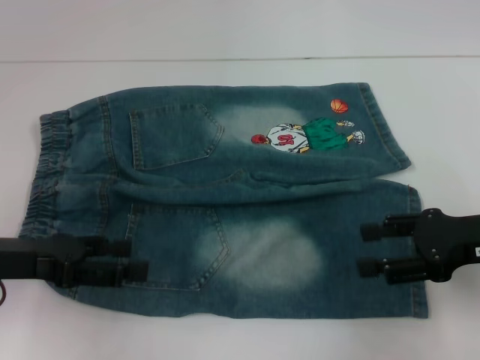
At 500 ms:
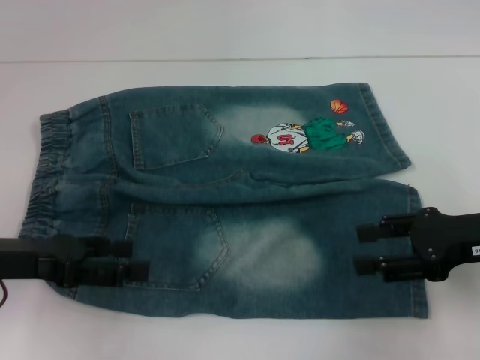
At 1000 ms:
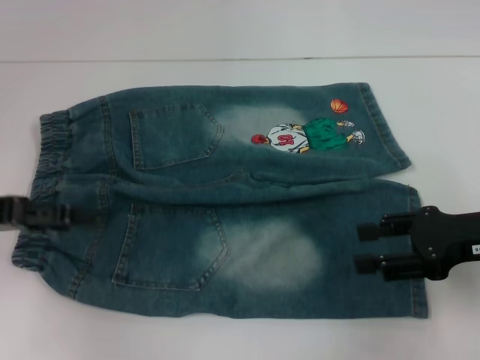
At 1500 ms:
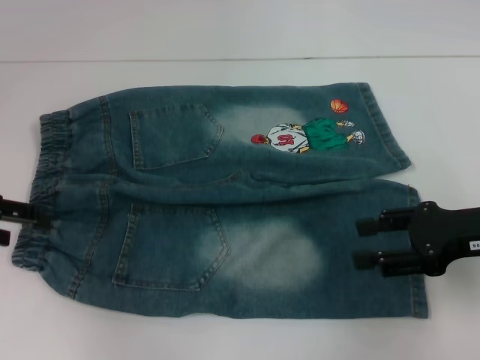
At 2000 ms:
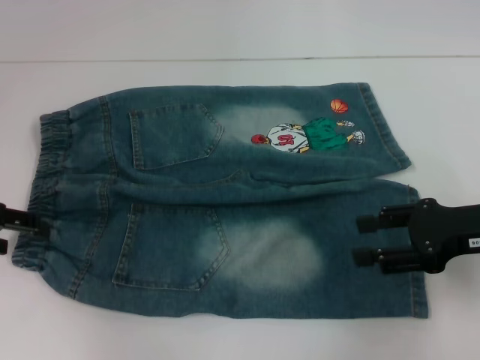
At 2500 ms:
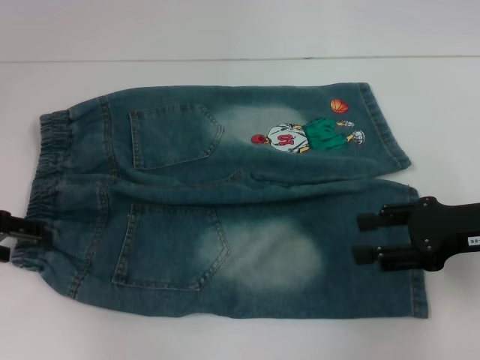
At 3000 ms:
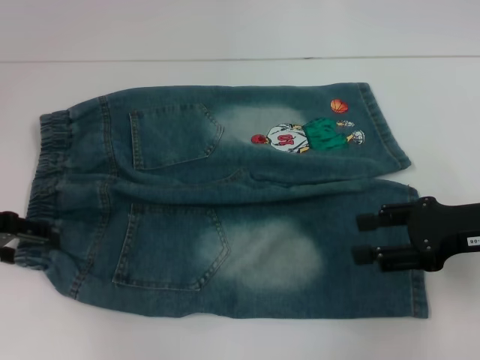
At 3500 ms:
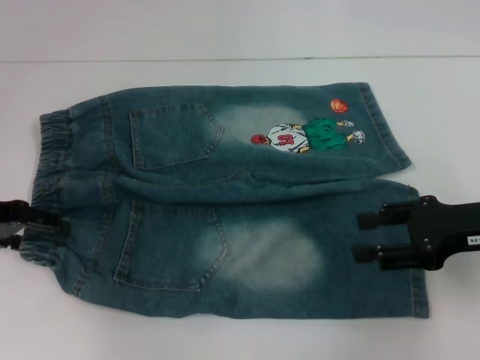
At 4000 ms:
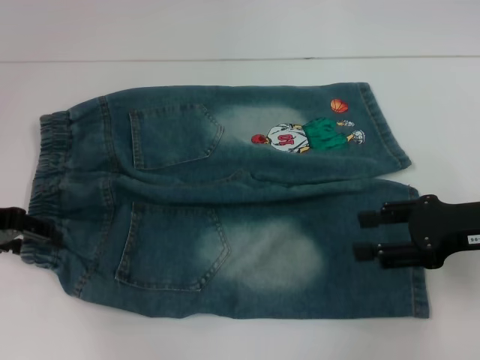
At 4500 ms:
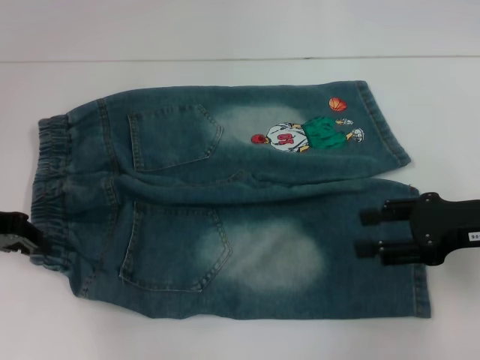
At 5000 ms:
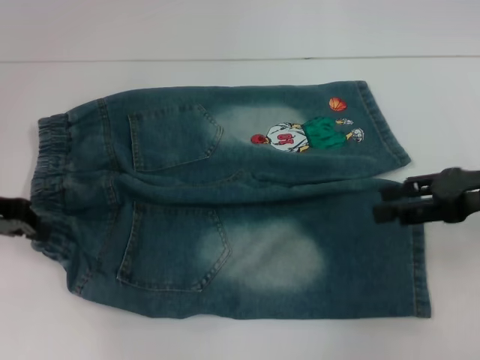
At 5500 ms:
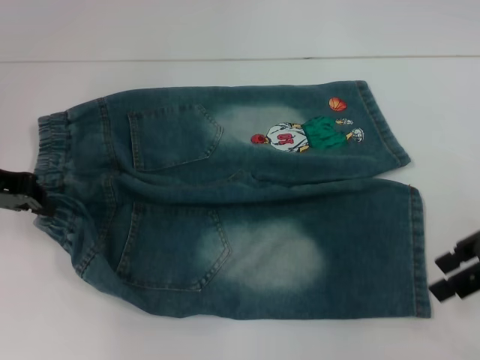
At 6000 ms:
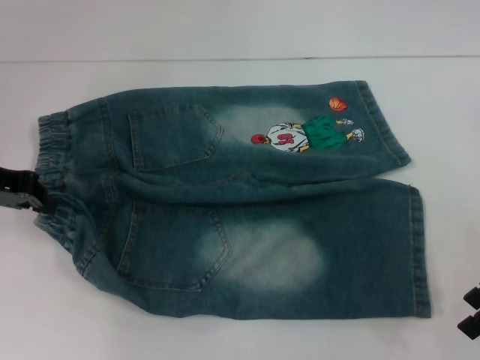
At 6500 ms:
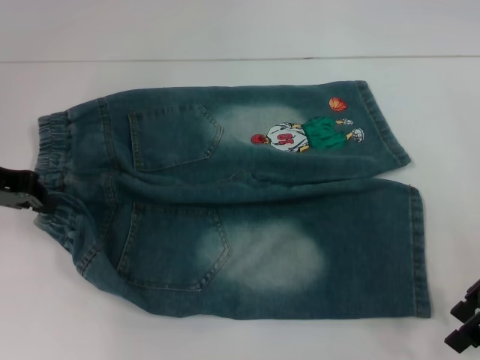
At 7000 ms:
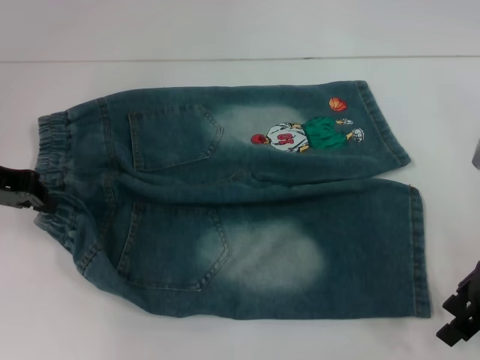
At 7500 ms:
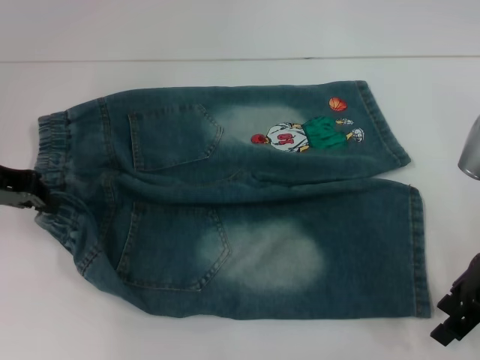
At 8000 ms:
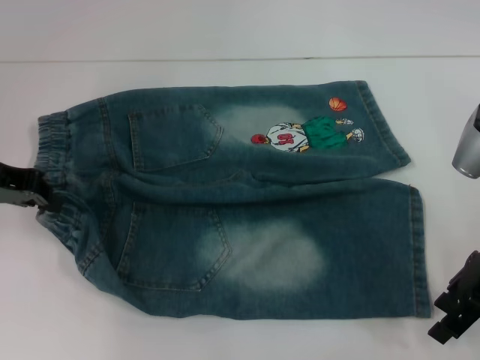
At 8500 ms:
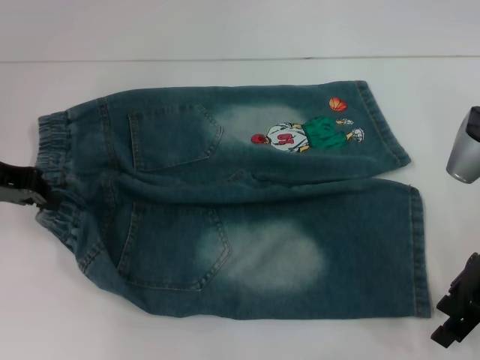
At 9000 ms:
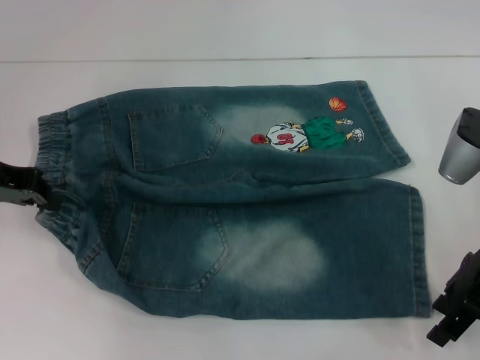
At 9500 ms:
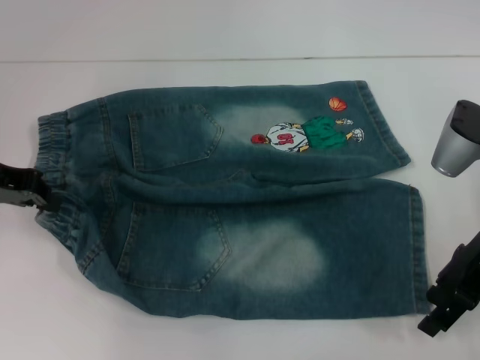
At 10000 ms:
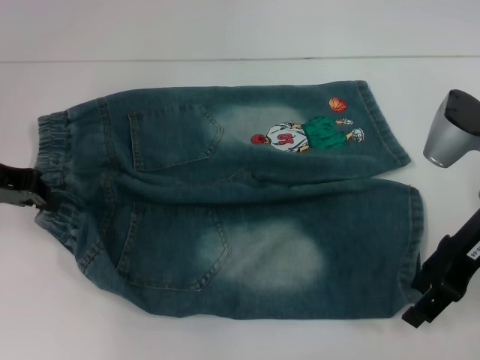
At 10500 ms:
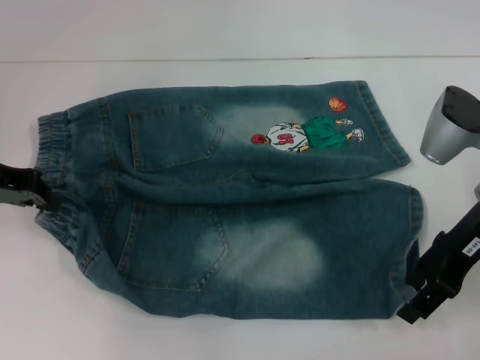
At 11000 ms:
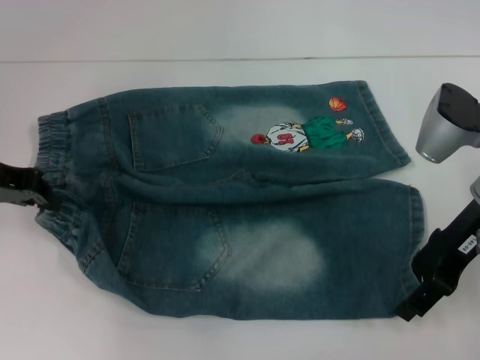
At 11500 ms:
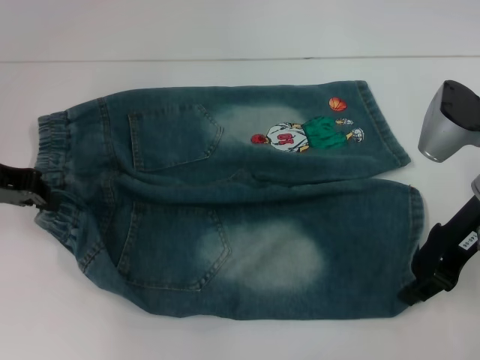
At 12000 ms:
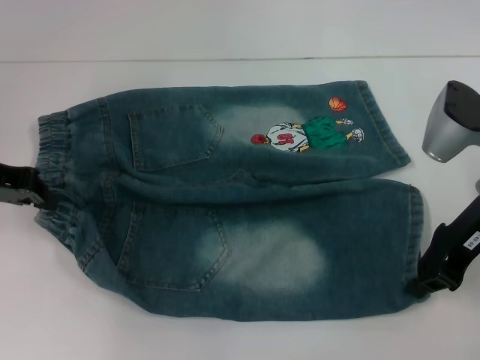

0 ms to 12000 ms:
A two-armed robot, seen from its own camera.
Step, 0 ms to 4500 ms: Hold the lower left waistband with your left hand.
0 ms to 2000 ms: The left gripper travels forward and to the left by about 10 cm.
2000 ms to 4000 ms: The grippers stay close to where they were, moving slightly.
4000 ms to 6000 ms: The left gripper closes.
6000 ms to 8000 ms: There are only small adjustments of the grippers.
8000 ms to 10000 ms: There are only small adjustments of the grippers.
10000 ms to 12000 ms: The right gripper closes.

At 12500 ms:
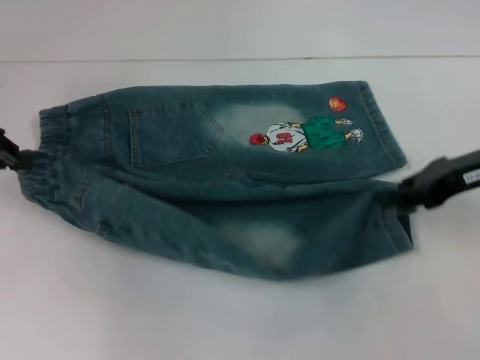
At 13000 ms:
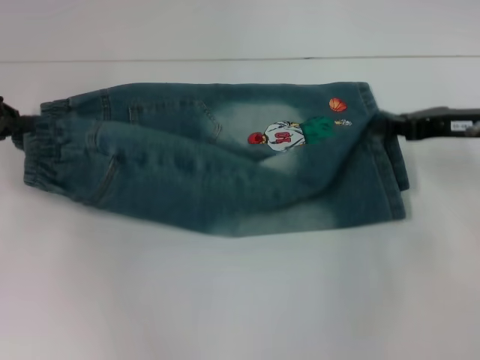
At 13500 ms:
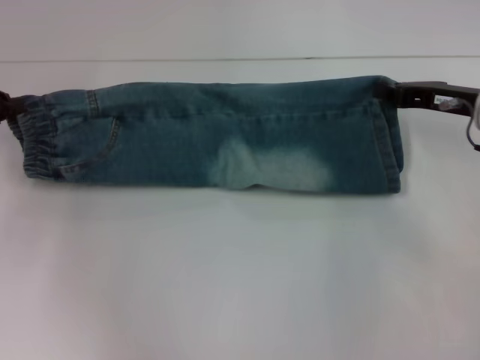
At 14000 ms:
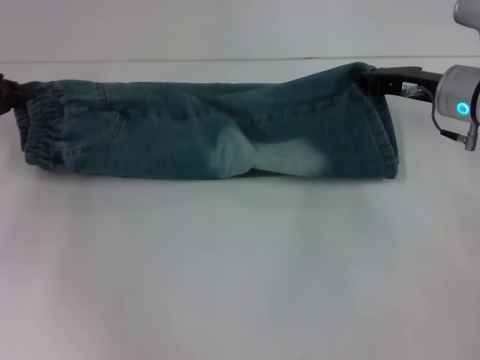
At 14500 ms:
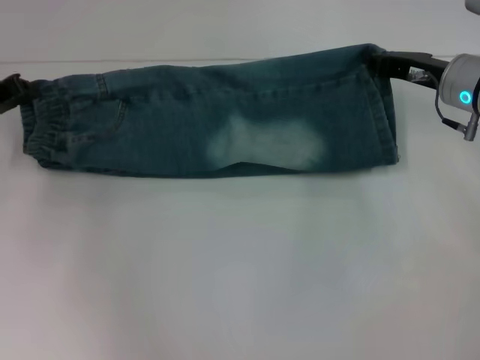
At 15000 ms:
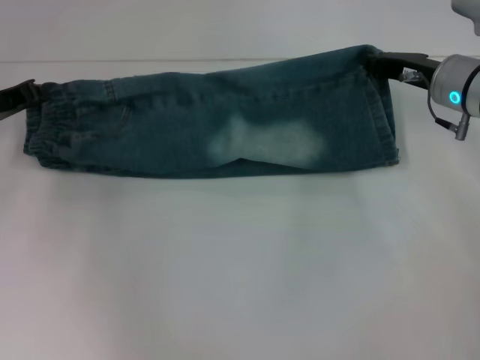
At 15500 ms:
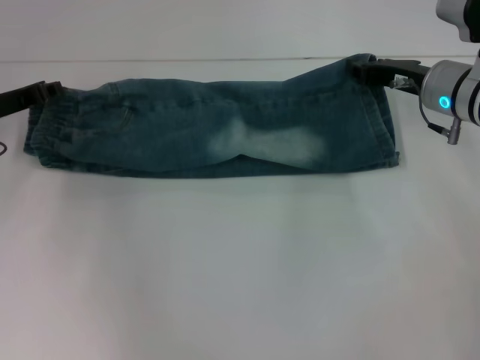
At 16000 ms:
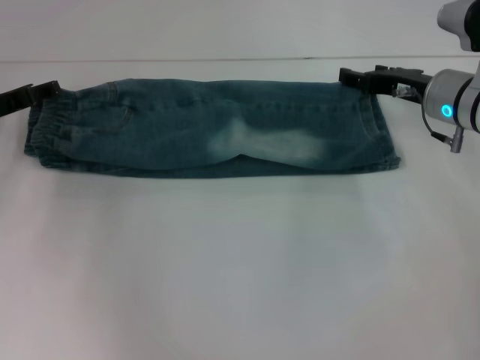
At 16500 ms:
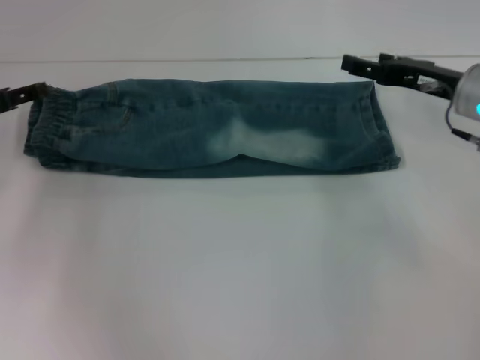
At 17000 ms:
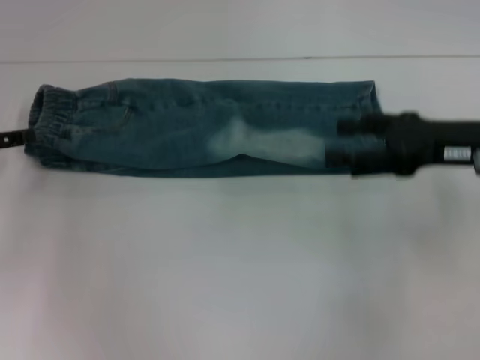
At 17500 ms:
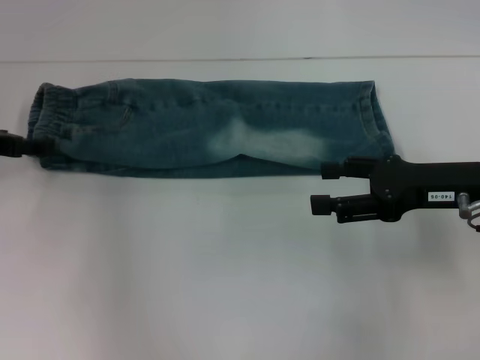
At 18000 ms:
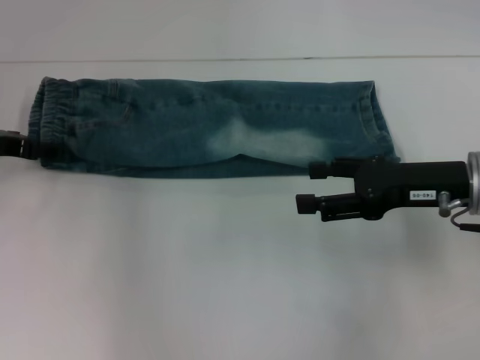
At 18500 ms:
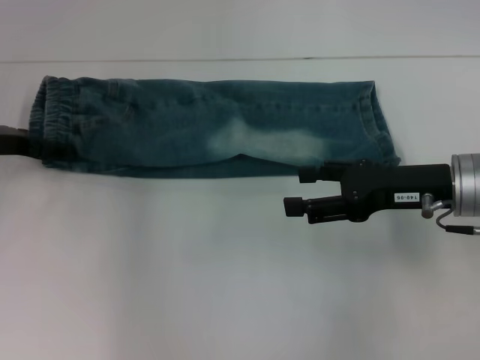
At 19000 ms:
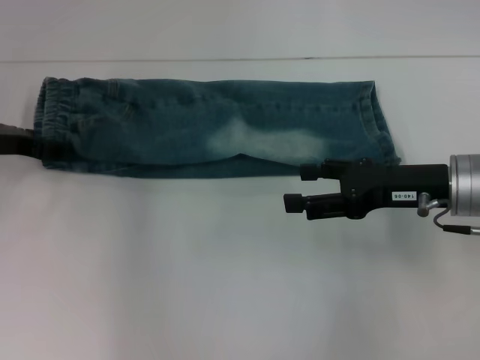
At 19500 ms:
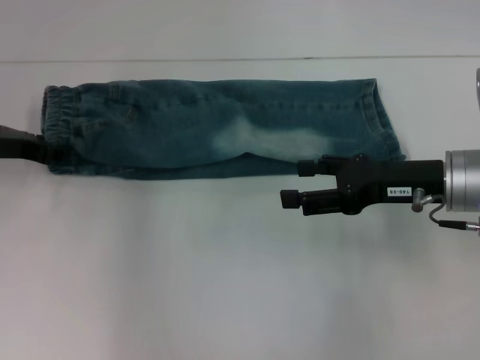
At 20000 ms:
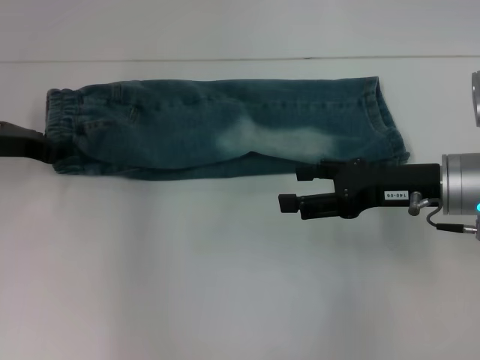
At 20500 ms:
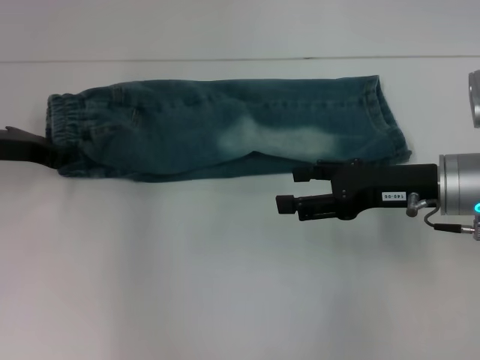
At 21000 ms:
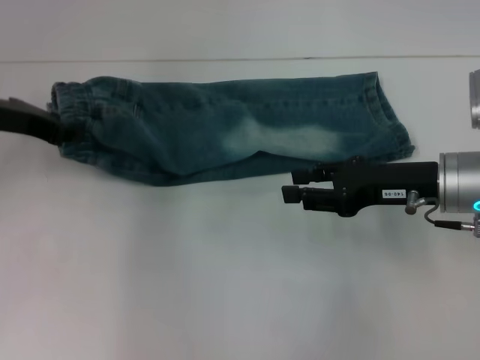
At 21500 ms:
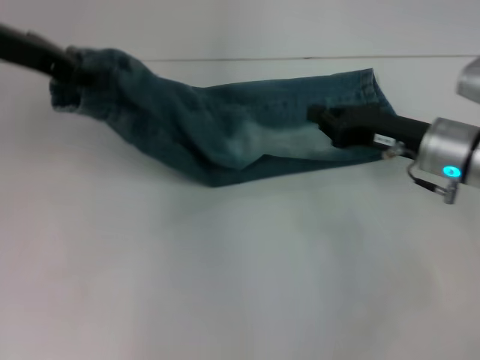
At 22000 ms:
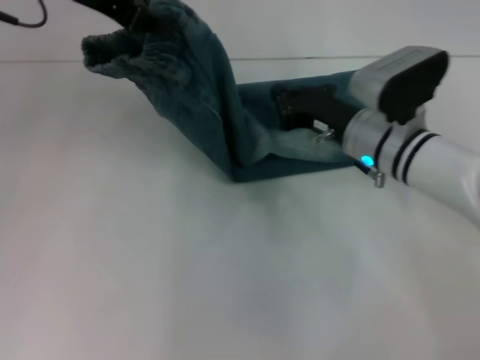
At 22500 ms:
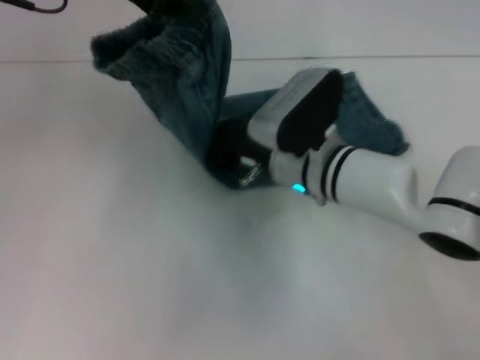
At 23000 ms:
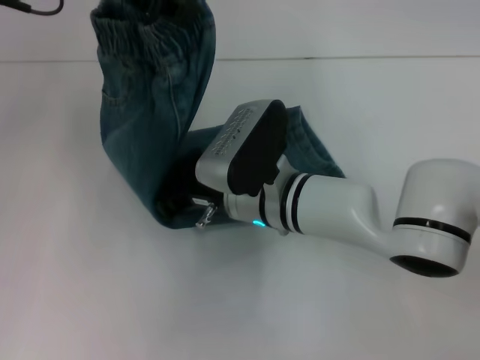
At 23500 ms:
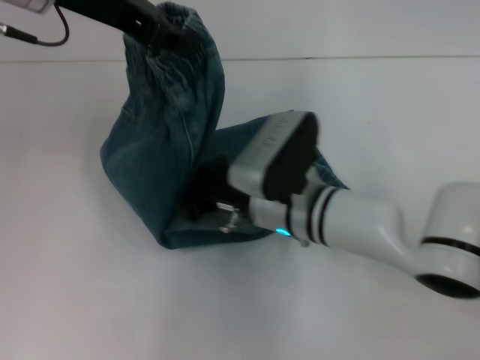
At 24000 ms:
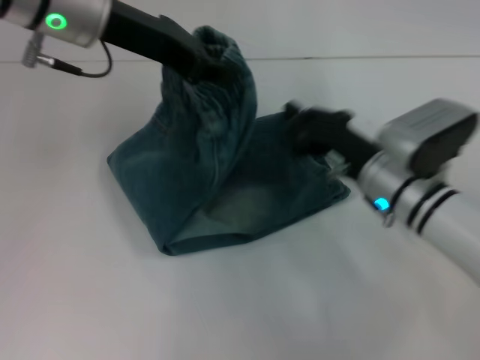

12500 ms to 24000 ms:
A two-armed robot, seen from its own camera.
Step, 12500 ms to 16000 ms: Fold upward with your right hand.
Step, 17000 ms to 19500 ms: Hold the waistband with your left hand.
Step, 20000 ms to 23000 ms: Press the middle of the pants with your right hand.
12500 ms to 14500 ms: The right gripper shifts roughly 5 cm forward. Meanwhile the left gripper heads downward, covering approximately 5 cm.
14500 ms to 16500 ms: The right gripper opens its fingers. Meanwhile the left gripper opens up.
16500 ms to 18500 ms: The right gripper is displaced backward by approximately 10 cm.
18500 ms to 20000 ms: The left gripper closes.
20000 ms to 22000 ms: The right gripper heads to the left and forward, covering roughly 10 cm, and closes. Meanwhile the left gripper heads upward and to the right, covering roughly 20 cm.
22000 ms to 24000 ms: The right gripper goes to the left and returns, some 10 cm each way. Meanwhile the left gripper changes place by approximately 5 cm.

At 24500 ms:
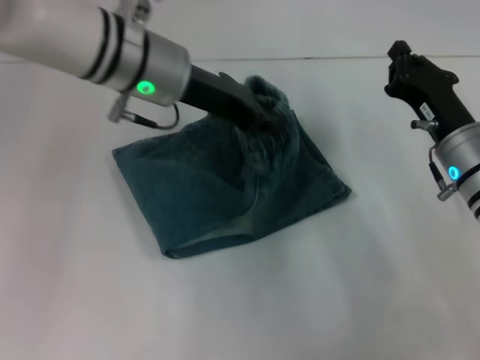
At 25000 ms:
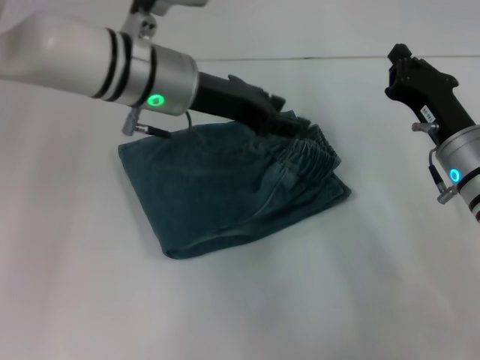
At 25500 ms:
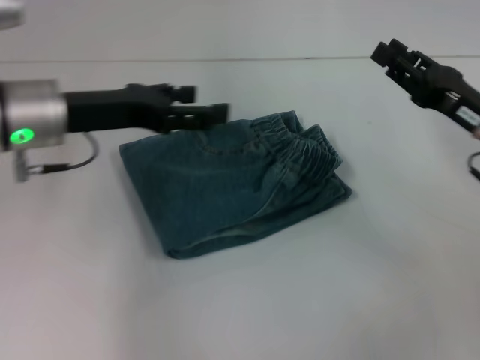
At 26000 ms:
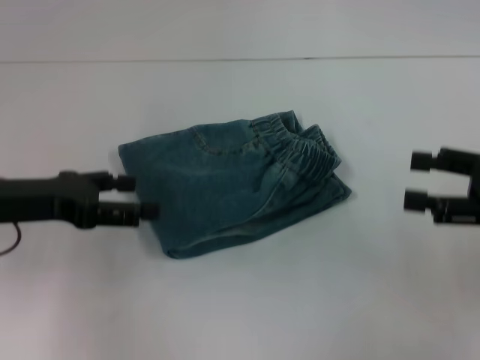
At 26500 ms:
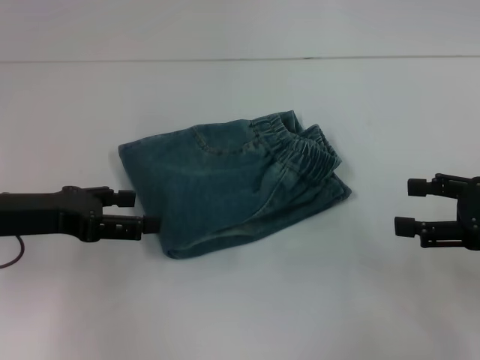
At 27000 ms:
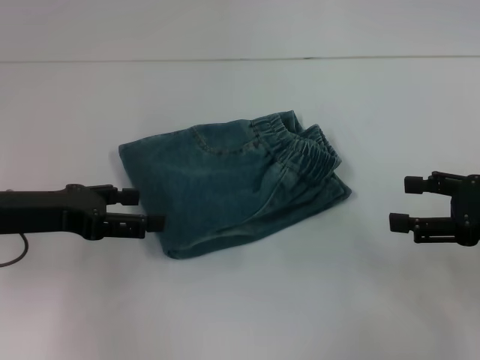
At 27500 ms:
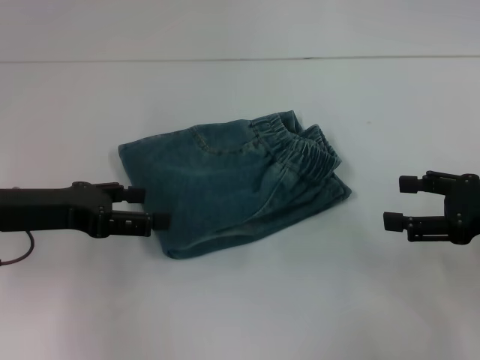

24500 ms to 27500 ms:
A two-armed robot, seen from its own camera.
24500 ms to 26000 ms: The right gripper is displaced to the right, upward and backward by some 15 cm, and opens its fingers; the left gripper travels to the left and backward by some 20 cm, and opens its fingers.
26000 ms to 27500 ms: There are only small adjustments of the grippers.
